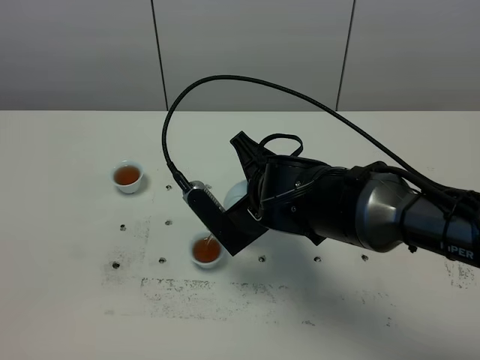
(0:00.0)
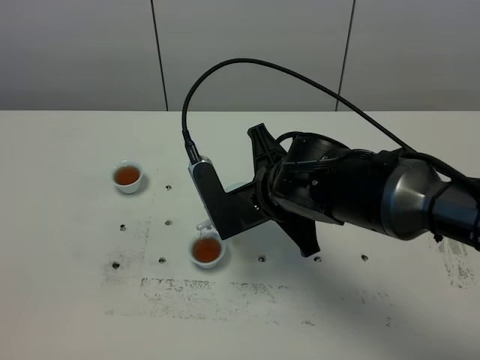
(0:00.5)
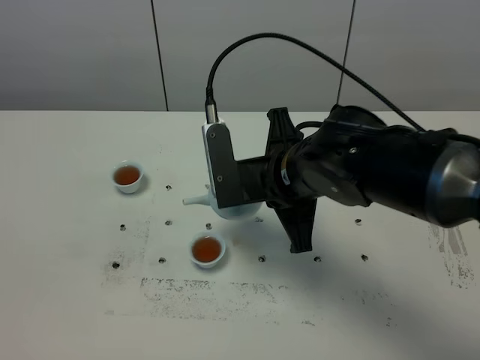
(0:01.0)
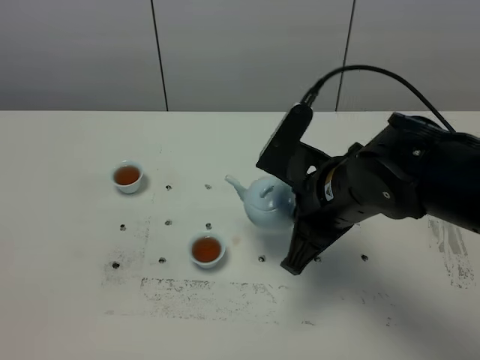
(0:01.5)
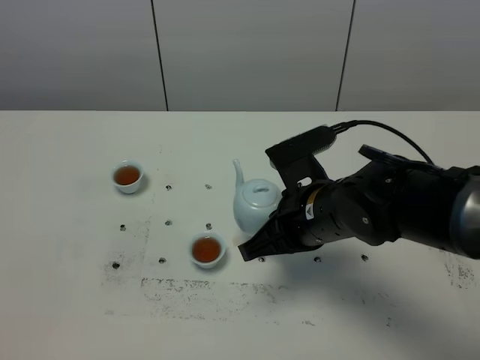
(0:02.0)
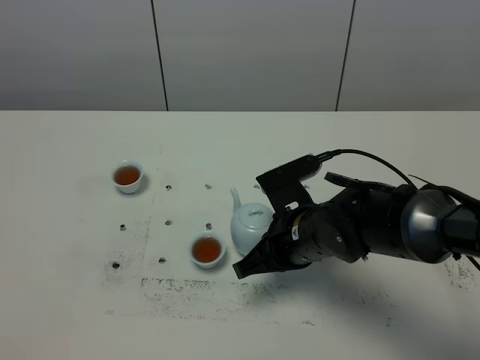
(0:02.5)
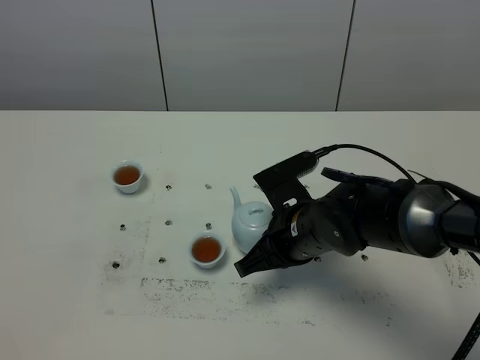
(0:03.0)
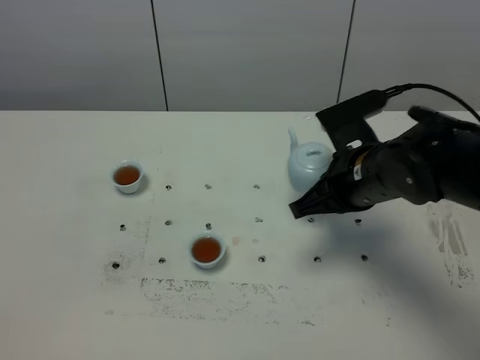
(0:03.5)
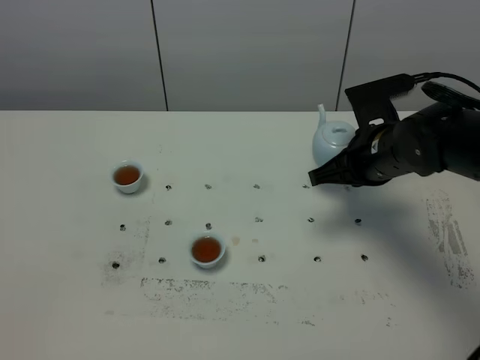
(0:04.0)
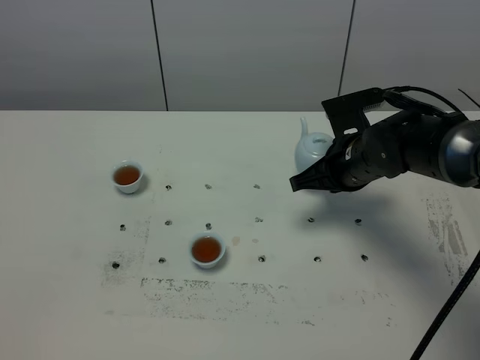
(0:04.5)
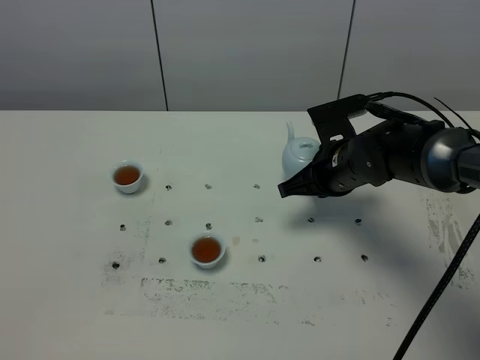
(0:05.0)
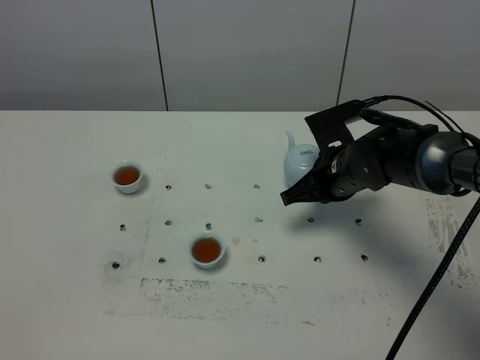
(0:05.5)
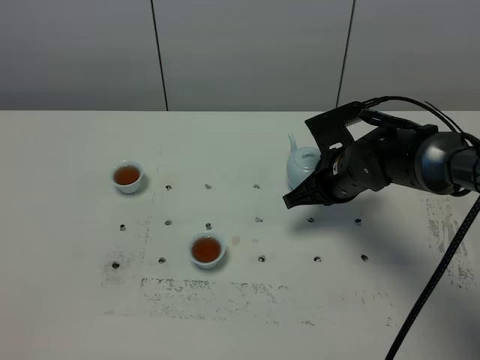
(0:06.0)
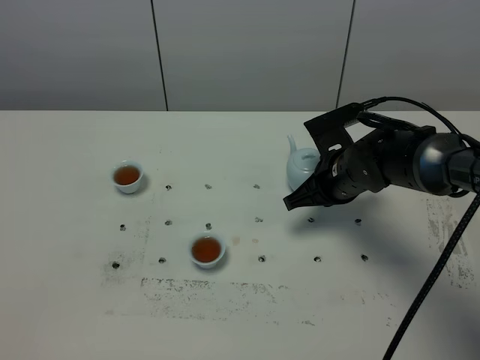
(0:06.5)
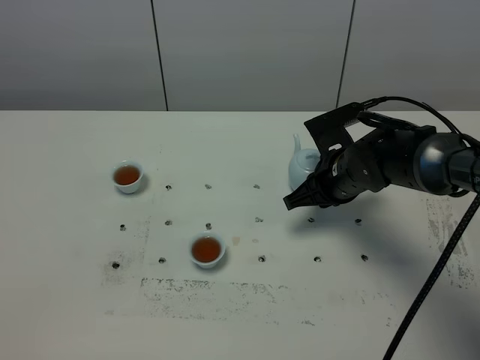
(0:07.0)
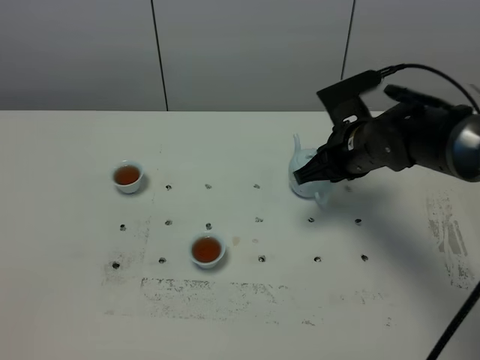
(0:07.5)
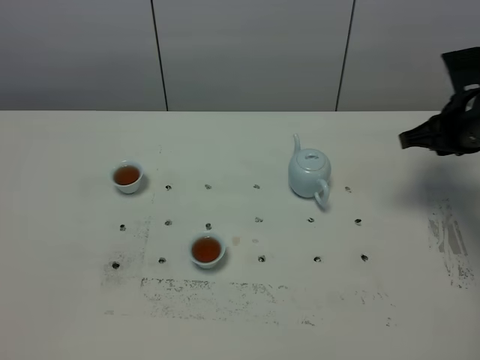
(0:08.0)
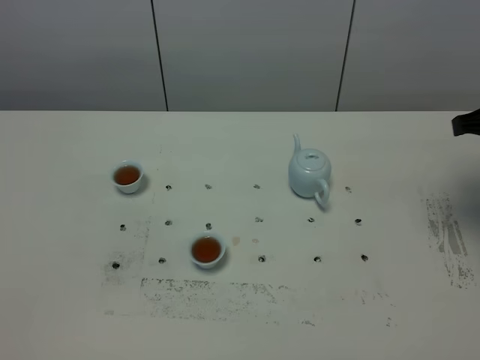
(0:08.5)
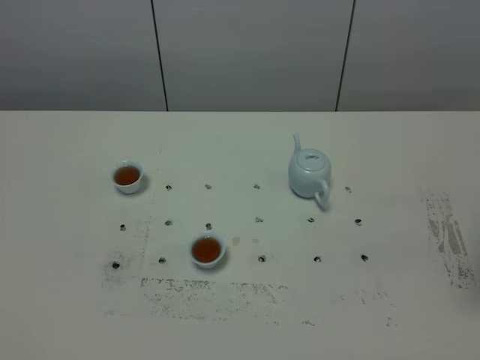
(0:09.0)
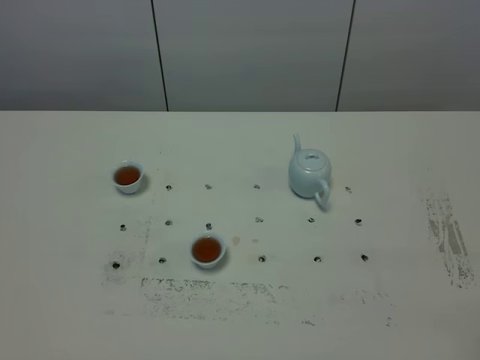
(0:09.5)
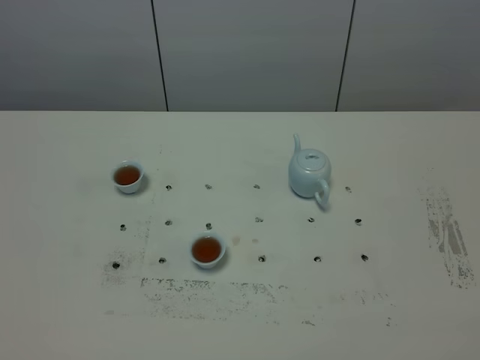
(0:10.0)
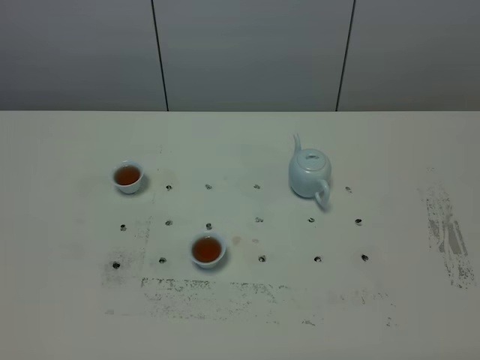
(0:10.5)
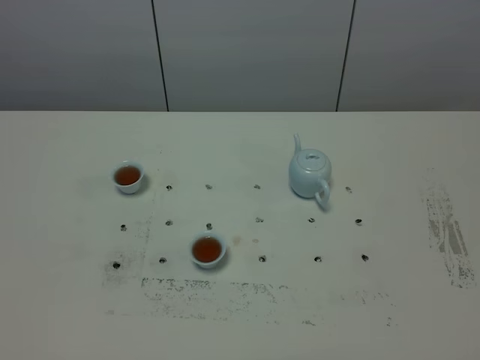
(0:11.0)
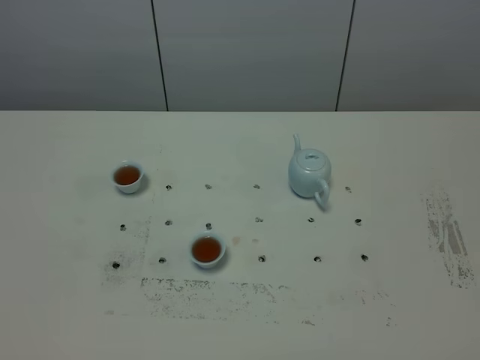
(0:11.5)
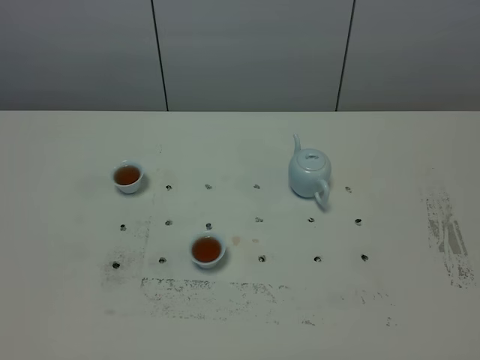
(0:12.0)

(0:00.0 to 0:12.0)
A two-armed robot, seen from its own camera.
Task of the whole recording: grasp the blue porcelain teapot and pour the tea into the two blue porcelain teacups one by one, put the blue porcelain teapot back in its original place.
0:00.0 - 0:02.0: The right gripper changes place by approximately 5 cm.
0:02.0 - 0:04.0: The right gripper heads forward and to the right, covering about 10 cm.
0:04.0 - 0:06.0: The right gripper goes roughly 5 cm downward.
0:06.0 - 0:08.0: The right gripper travels to the right and upward by approximately 20 cm, and opens its fingers.
0:08.0 - 0:10.0: The right gripper is displaced backward by approximately 35 cm.

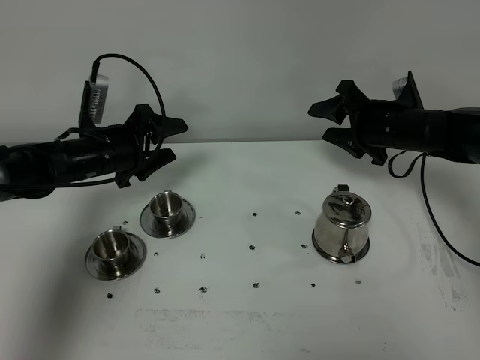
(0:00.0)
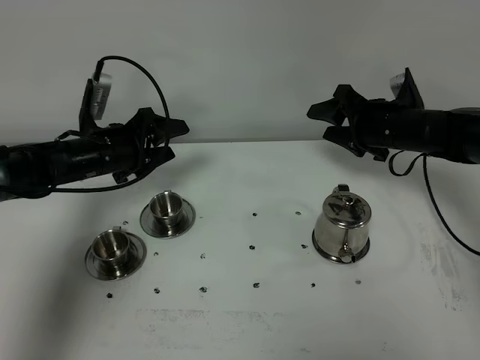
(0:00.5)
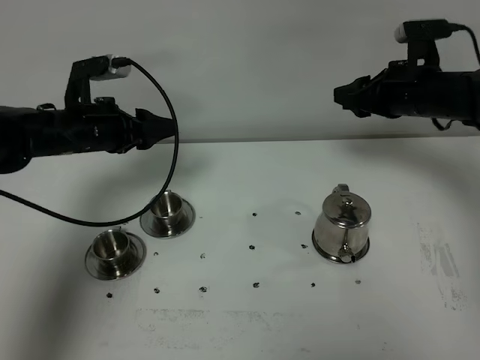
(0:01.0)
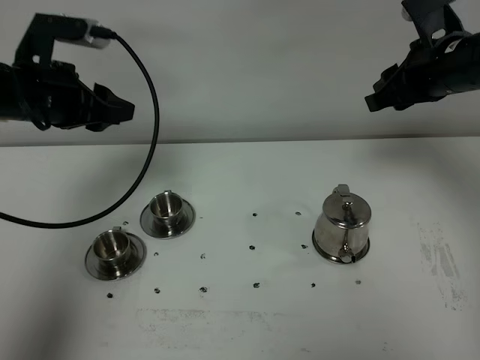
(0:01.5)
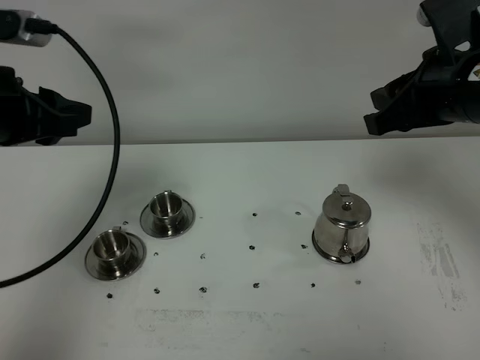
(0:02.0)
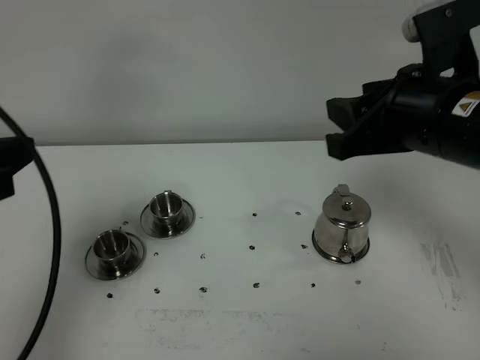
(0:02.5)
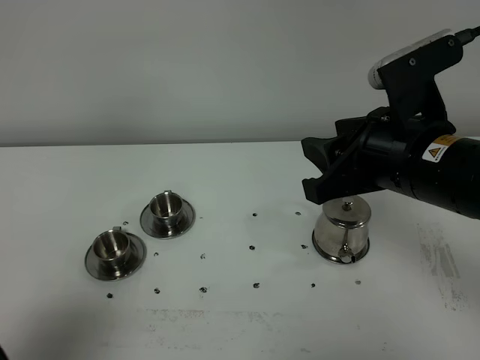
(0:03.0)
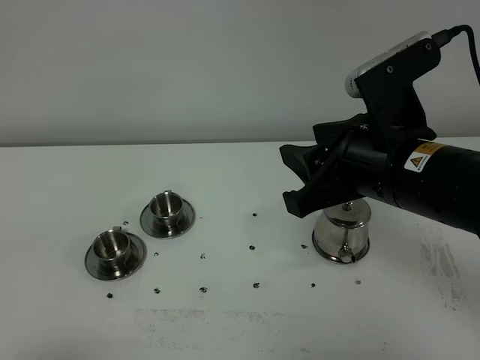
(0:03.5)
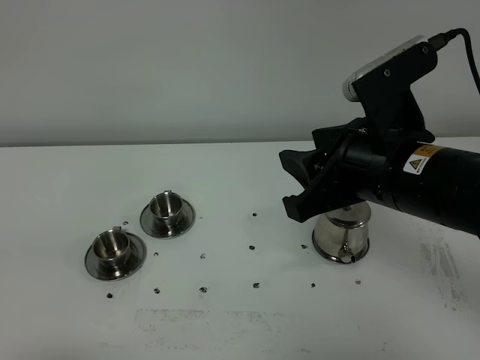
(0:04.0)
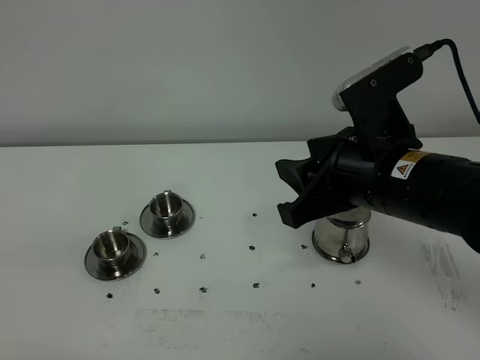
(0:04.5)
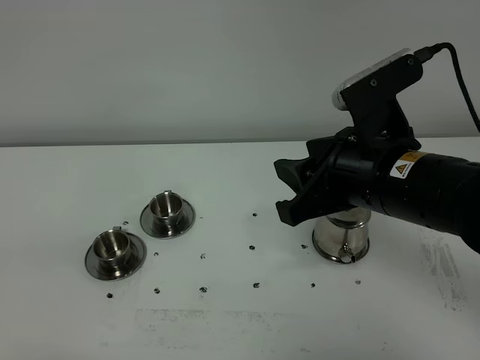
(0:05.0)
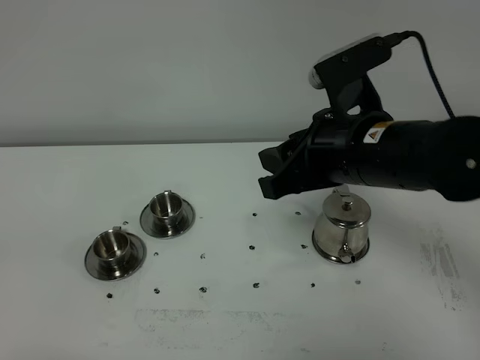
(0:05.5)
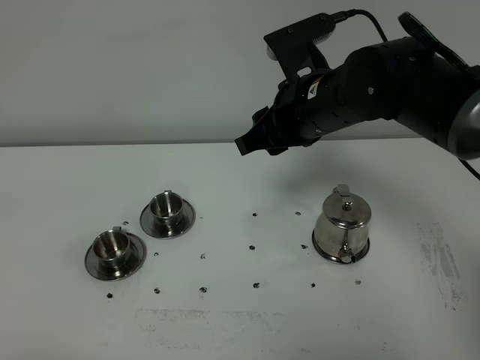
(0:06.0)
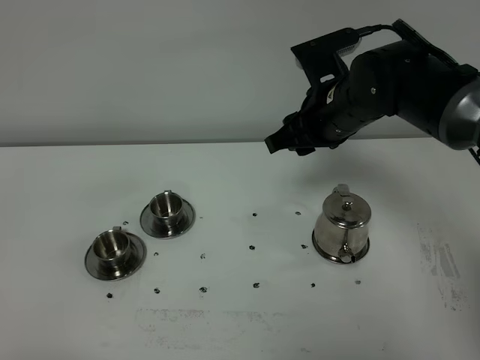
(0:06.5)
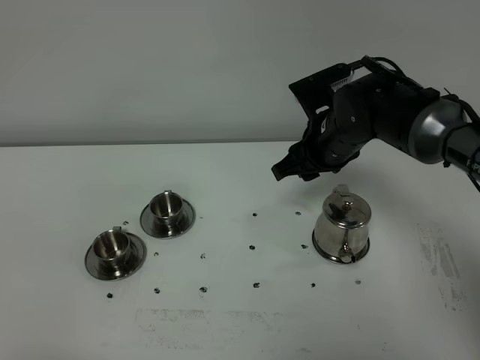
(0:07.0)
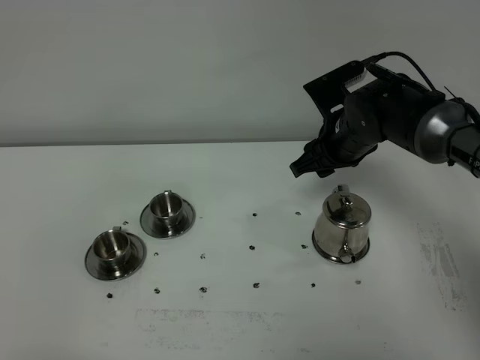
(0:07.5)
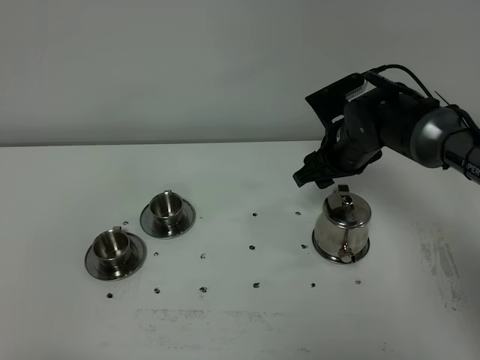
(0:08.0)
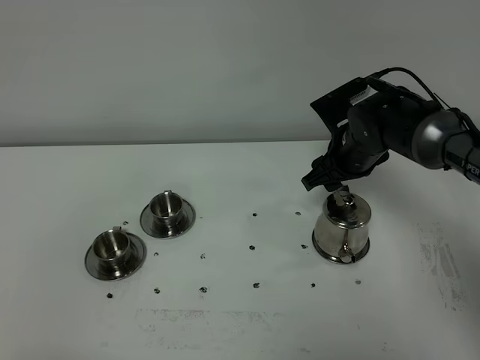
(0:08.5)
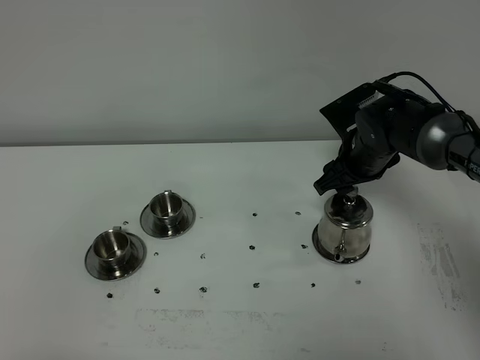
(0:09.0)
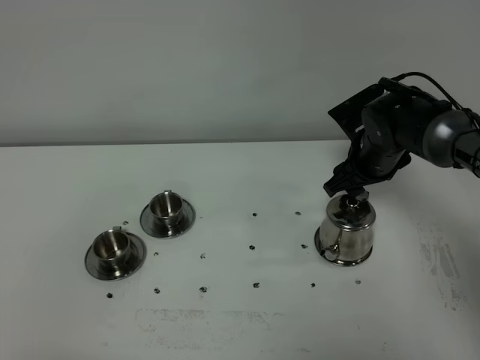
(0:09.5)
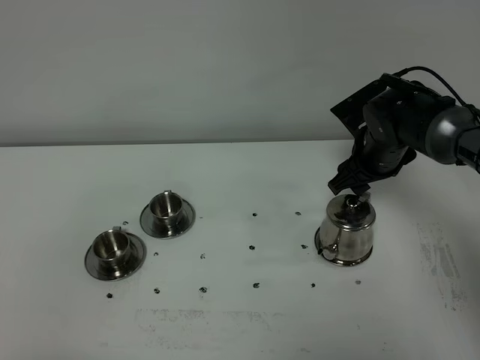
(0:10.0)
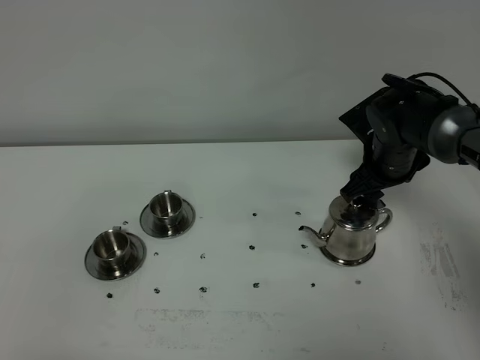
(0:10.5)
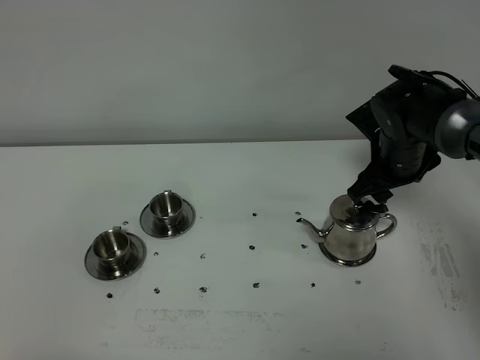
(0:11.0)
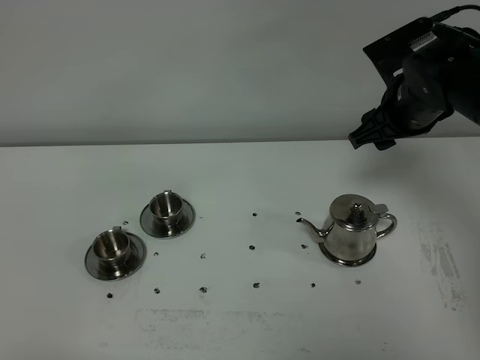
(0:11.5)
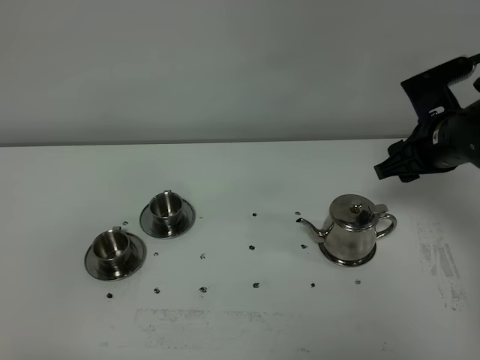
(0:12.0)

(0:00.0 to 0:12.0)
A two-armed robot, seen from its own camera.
Task of the whole recording: grasp the stainless steel teapot and pour the tea into the two stainless steel teacups one by one, put the stainless steel teapot back in its original place.
0:00.0 - 0:02.0: The two grippers go approximately 25 cm upward and backward. The left gripper closes.
0:02.0 - 0:04.0: The right gripper moves backward and to the left, about 10 cm, while the left gripper moves backward, roughly 30 cm.
0:04.0 - 0:06.0: The right gripper goes roughly 15 cm forward and to the left.
0:06.0 - 0:08.0: The right gripper is displaced downward, forward and to the right by approximately 15 cm, and opens up.
0:08.0 - 0:10.0: The grippers make only small movements.
0:10.0 - 0:12.0: The right gripper goes roughly 10 cm to the right and backward.

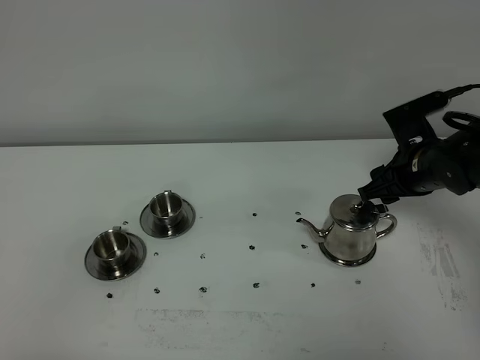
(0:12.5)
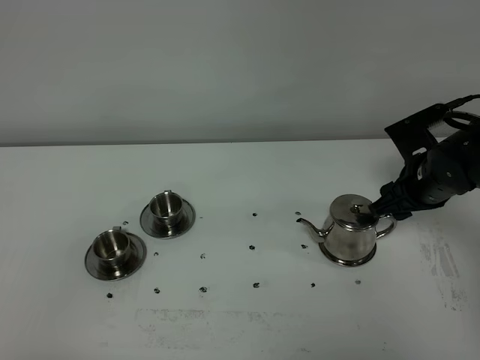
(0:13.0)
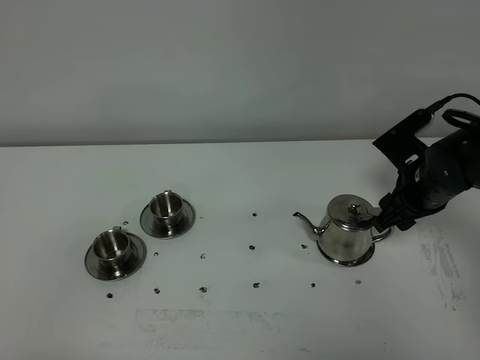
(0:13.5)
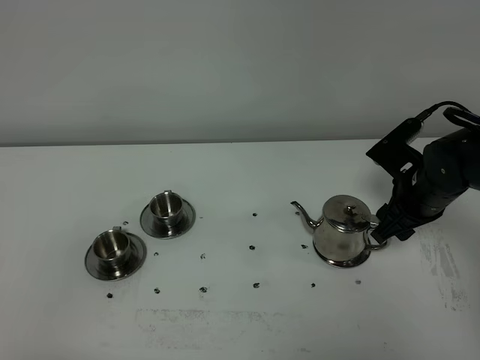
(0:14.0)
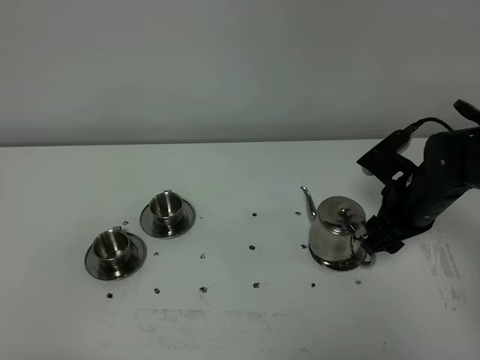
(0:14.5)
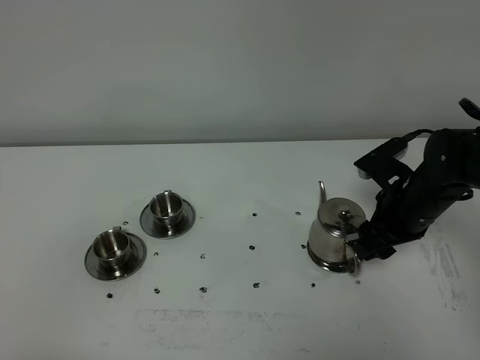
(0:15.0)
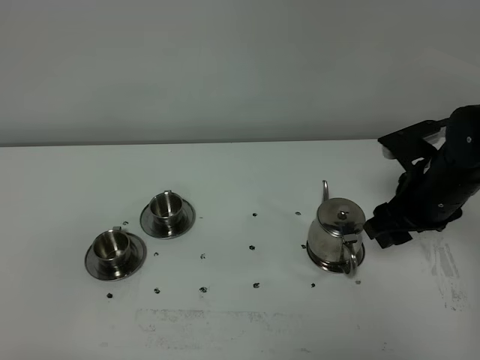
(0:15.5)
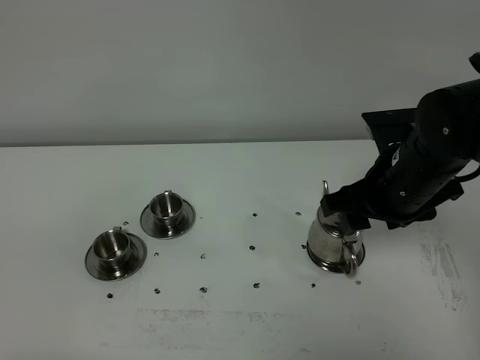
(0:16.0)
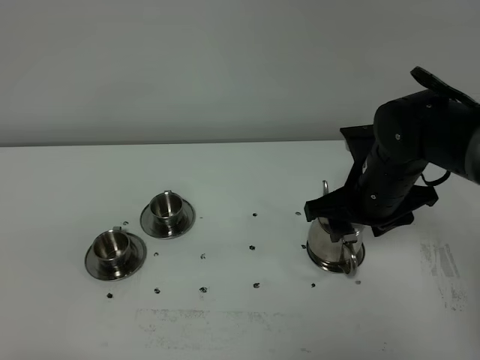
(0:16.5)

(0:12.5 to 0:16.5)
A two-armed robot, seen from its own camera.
Task of the whole recording: grasp the stainless steel teapot and pour the tea into the two stainless steel teacups one by one, put the stainless steel teapot back in its original place.
0:14.5 - 0:16.5: The right gripper moves to the left and upward, roughly 10 cm.
